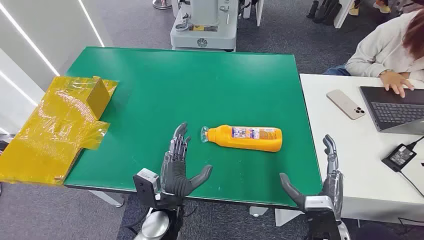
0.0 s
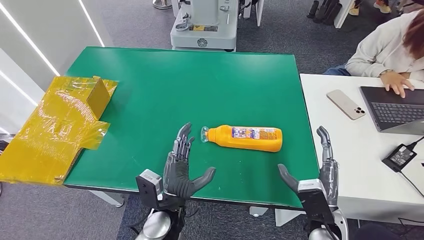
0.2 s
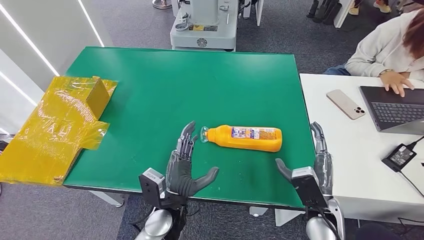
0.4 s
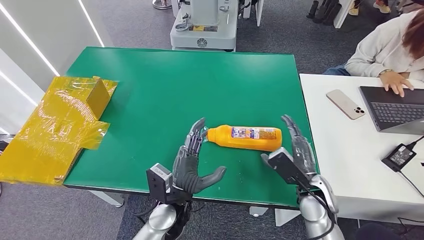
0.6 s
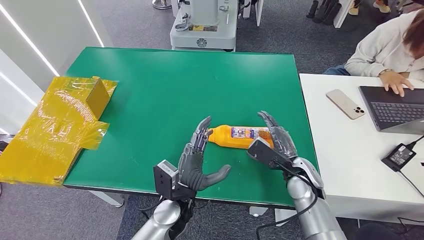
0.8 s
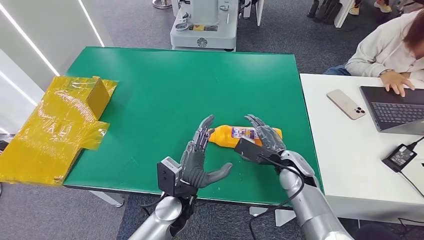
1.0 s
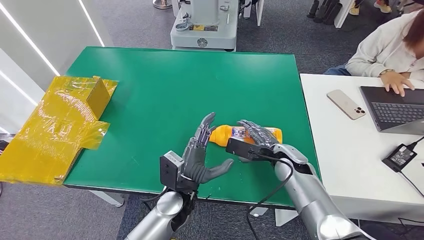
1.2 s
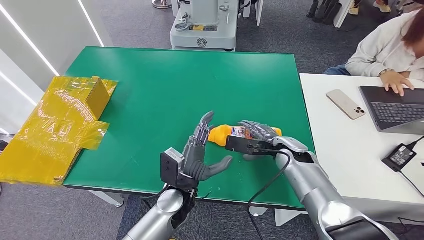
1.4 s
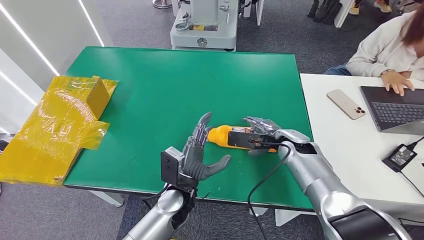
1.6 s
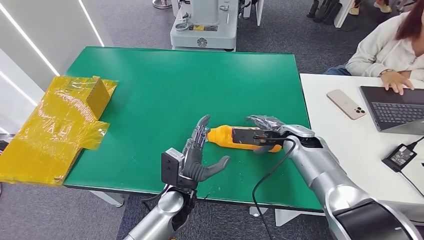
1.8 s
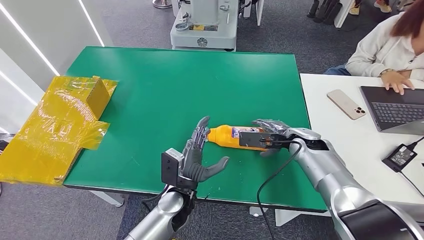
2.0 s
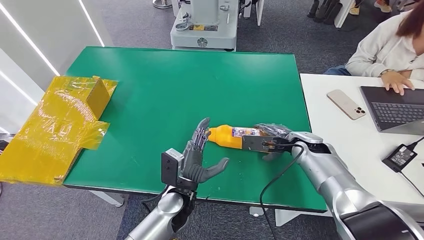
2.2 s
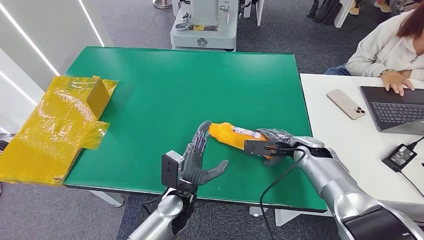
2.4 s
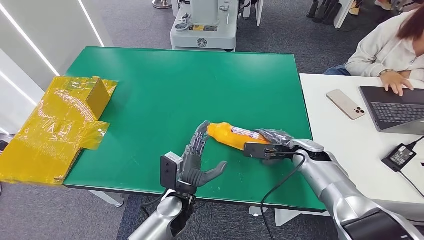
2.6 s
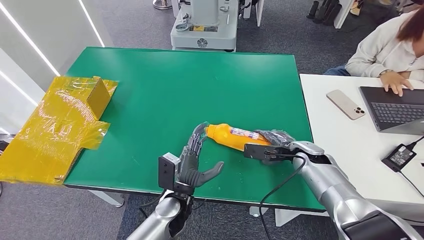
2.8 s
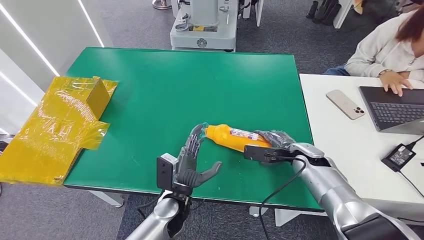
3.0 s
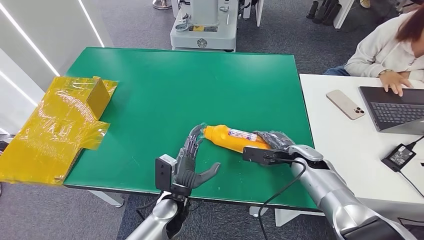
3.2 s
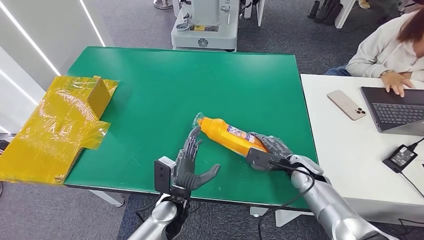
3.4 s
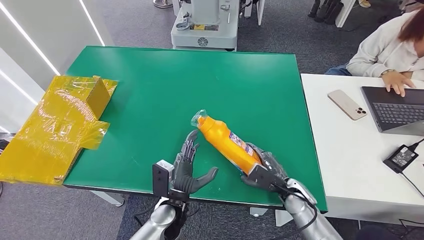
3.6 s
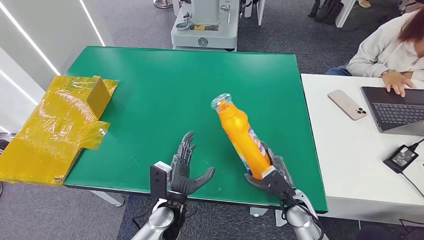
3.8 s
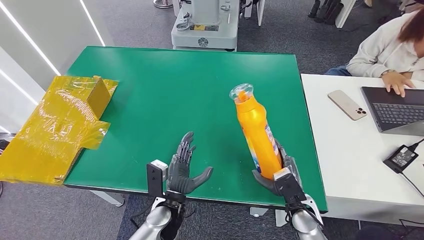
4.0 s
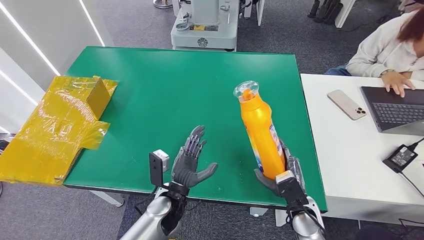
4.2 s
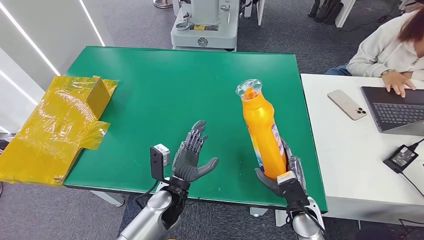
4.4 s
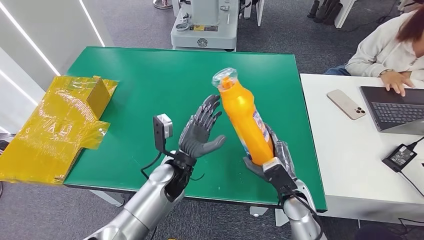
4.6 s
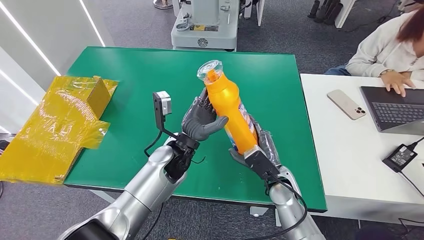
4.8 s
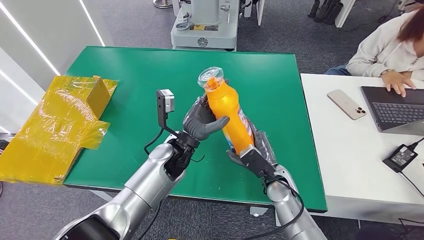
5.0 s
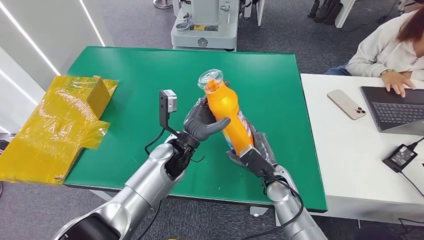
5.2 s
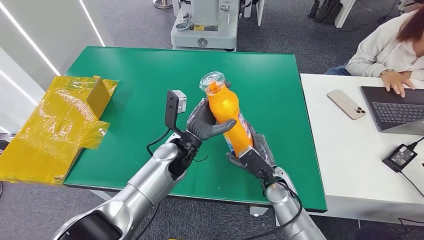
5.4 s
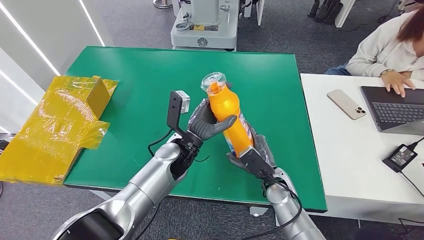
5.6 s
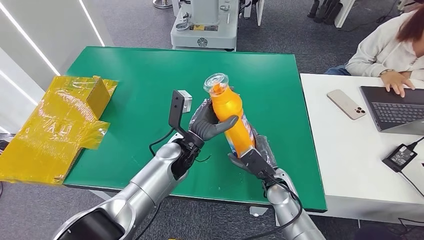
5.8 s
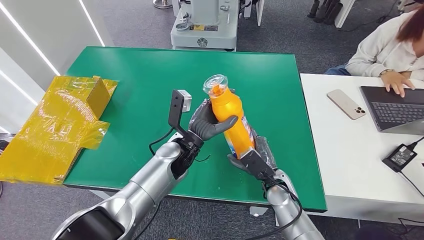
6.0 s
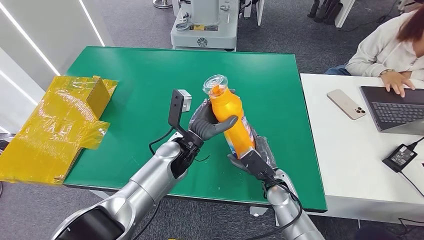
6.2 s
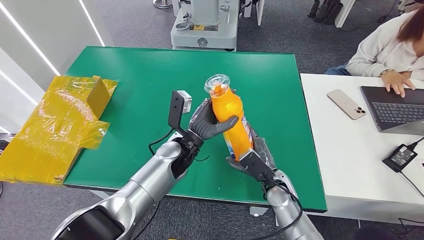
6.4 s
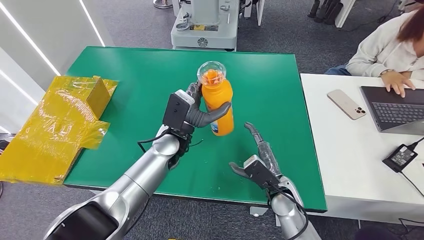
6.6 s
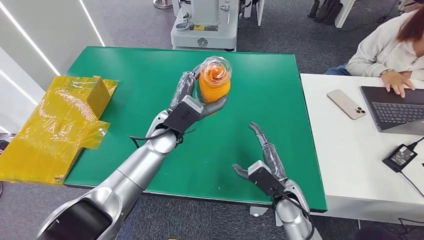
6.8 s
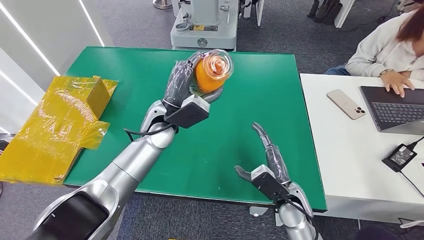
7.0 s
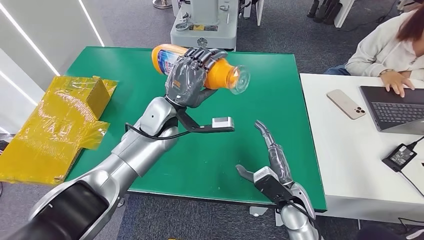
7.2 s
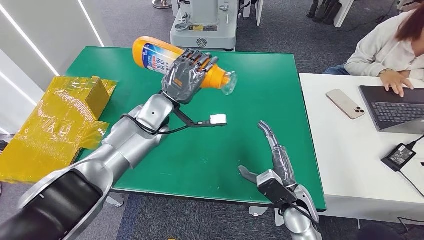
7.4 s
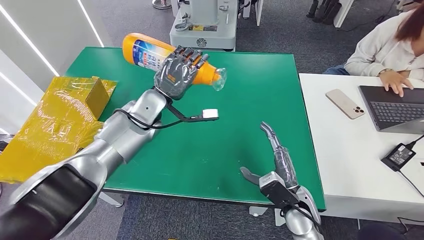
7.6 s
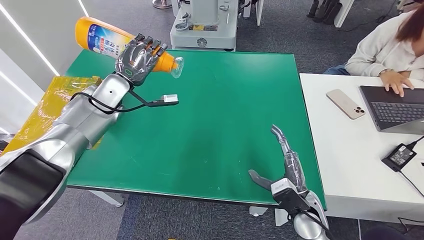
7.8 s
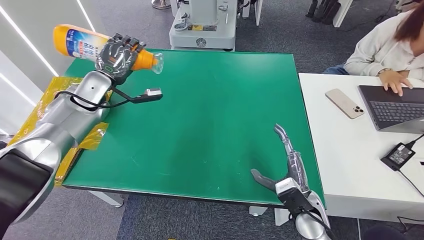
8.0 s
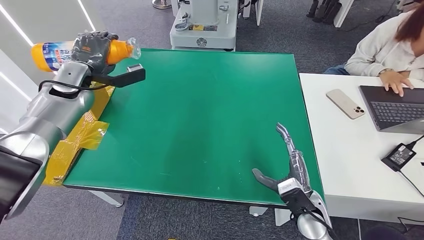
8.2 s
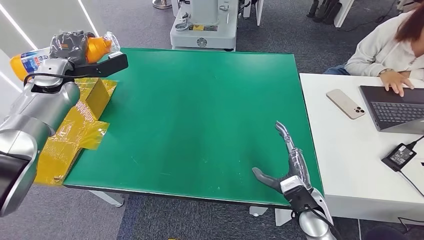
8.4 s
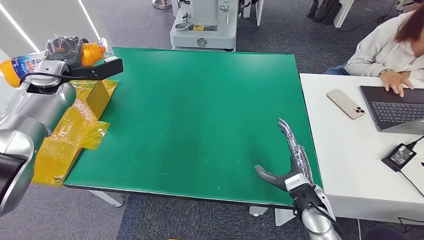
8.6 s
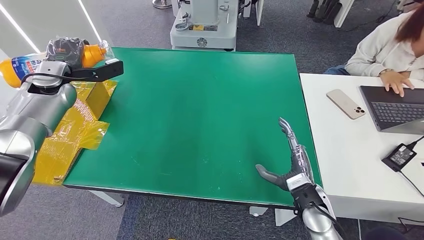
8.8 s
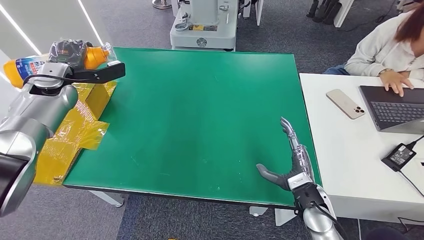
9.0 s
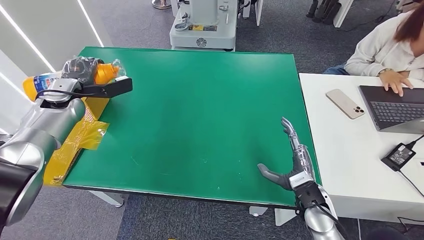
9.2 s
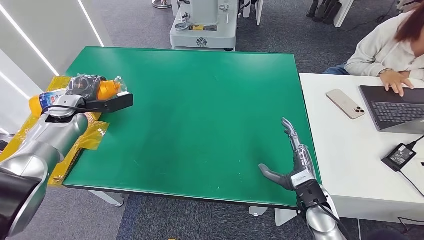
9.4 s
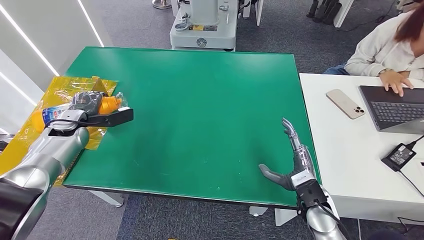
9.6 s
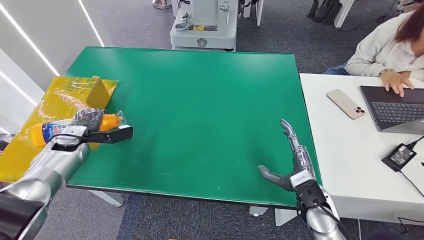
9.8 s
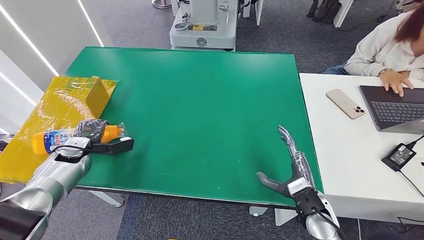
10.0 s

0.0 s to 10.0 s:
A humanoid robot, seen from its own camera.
Step, 0.0 to 3.8 s: Pick up the bottle from the table.
1.4 to 2.8 s: The right hand goes approximately 5 cm to the right.
2.8 to 4.2 s: The right hand shifts roughly 15 cm backward and to the left.
4.2 to 5.8 s: The left hand heads forward and upward, covering approximately 15 cm. Meanwhile the right hand heads forward, covering roughly 5 cm.
8.6 to 10.0 s: The left hand heads downward and backward, covering roughly 20 cm.

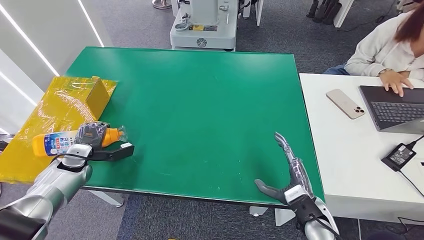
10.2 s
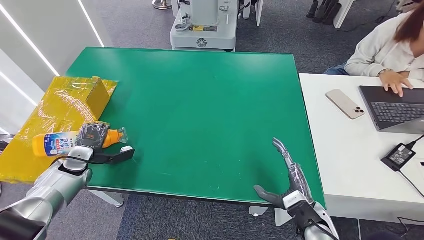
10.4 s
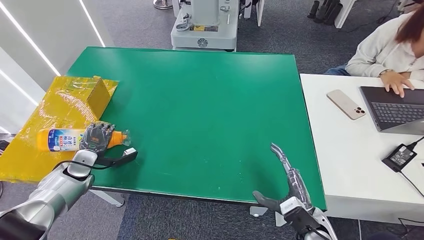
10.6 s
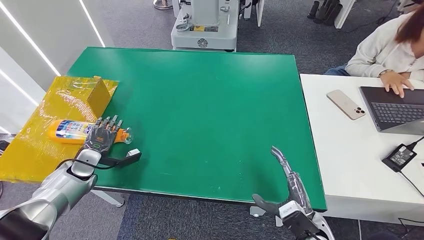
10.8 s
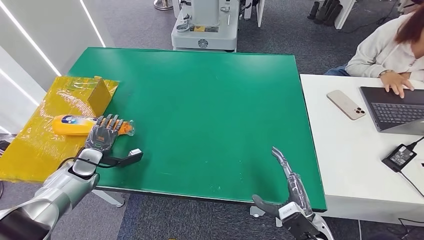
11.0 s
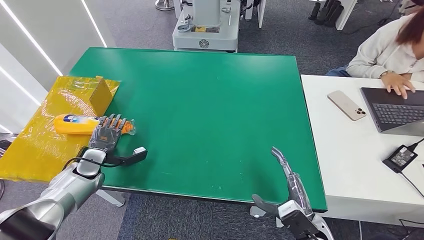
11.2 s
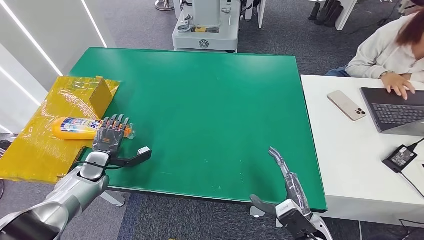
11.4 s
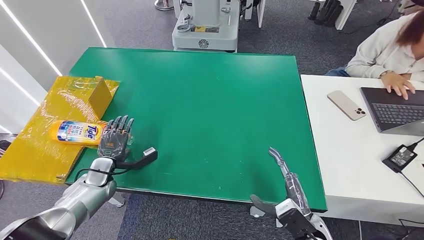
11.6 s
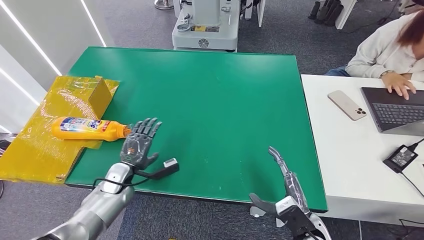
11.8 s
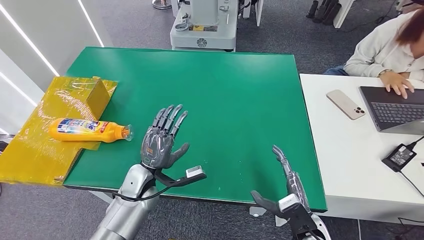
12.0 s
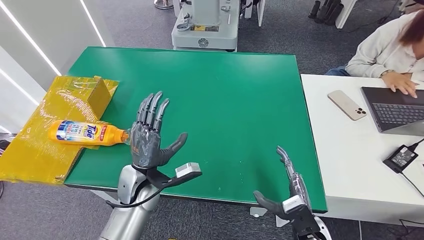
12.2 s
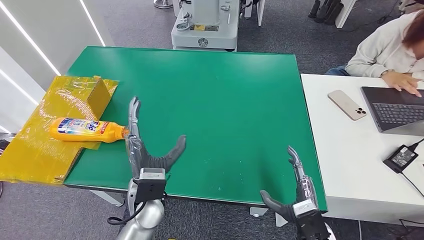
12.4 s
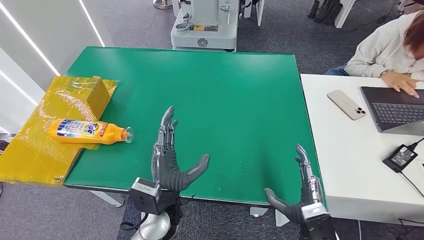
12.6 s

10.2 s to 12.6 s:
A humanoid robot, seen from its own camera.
Step, 10.2 to 12.6 s: Turn the bottle to the front side.
10.2 to 11.4 s: The left hand heads to the right, covering approximately 5 cm.
11.4 to 12.6 s: The left hand heads to the right, covering about 25 cm.
